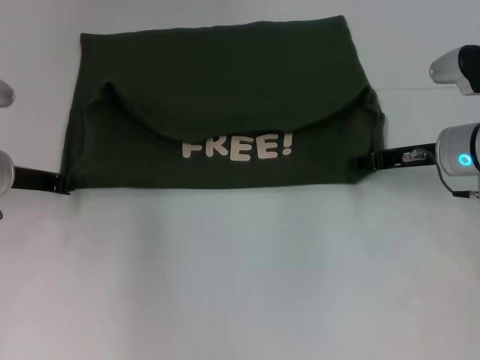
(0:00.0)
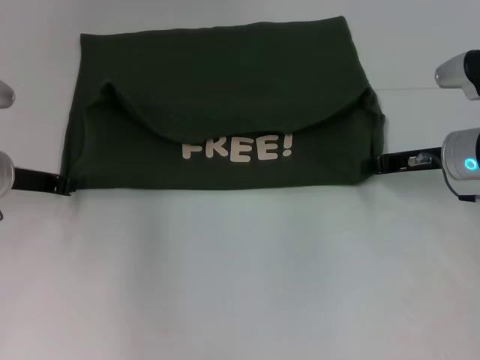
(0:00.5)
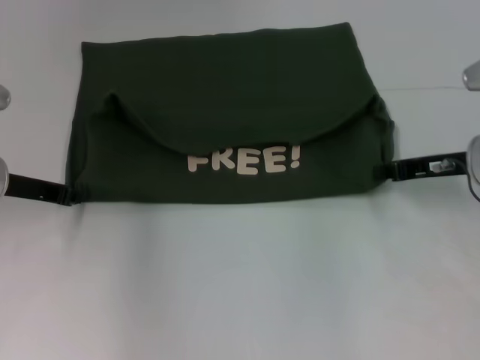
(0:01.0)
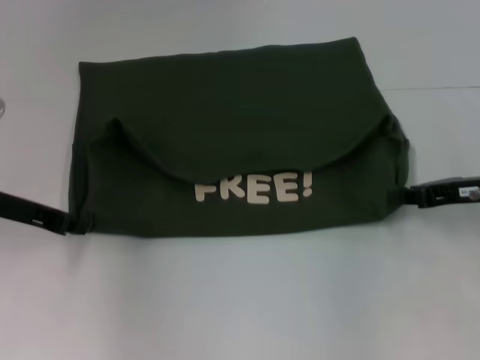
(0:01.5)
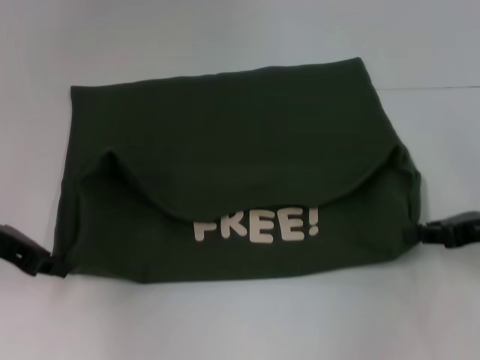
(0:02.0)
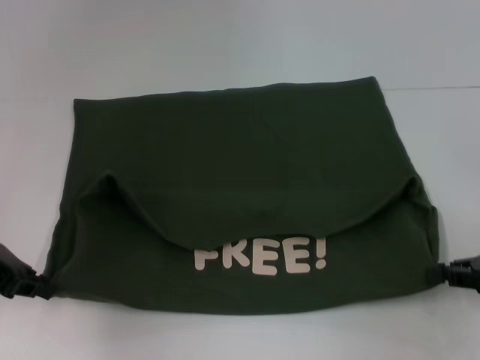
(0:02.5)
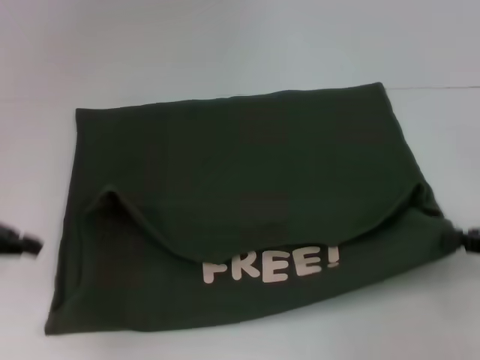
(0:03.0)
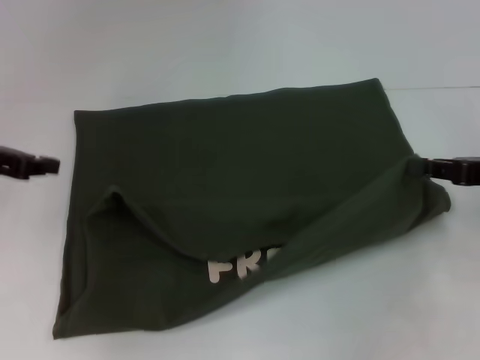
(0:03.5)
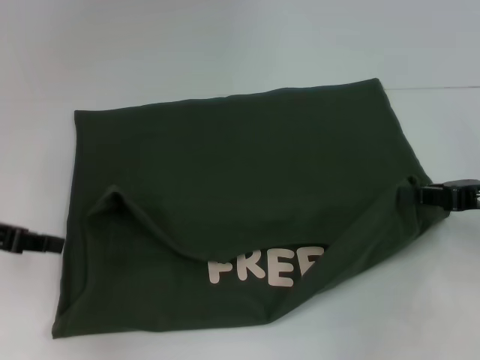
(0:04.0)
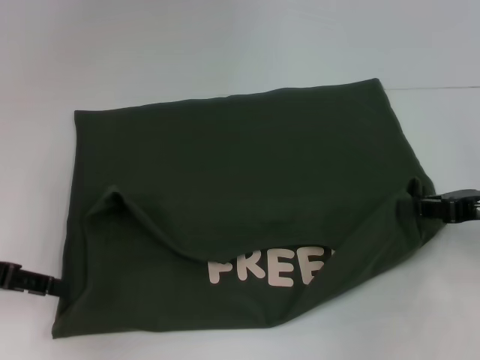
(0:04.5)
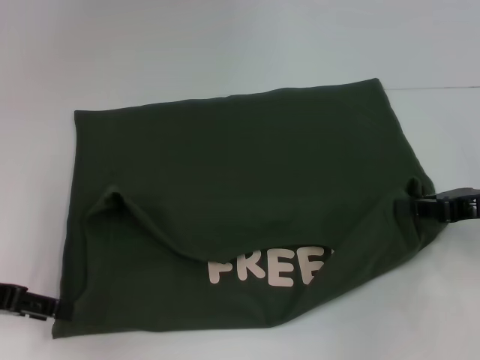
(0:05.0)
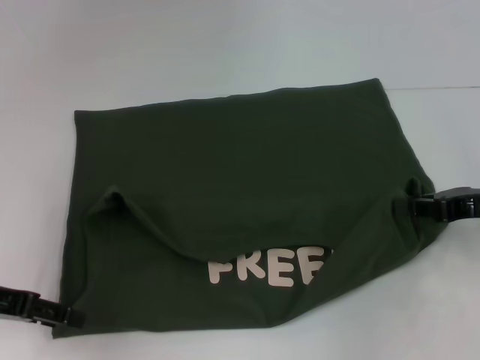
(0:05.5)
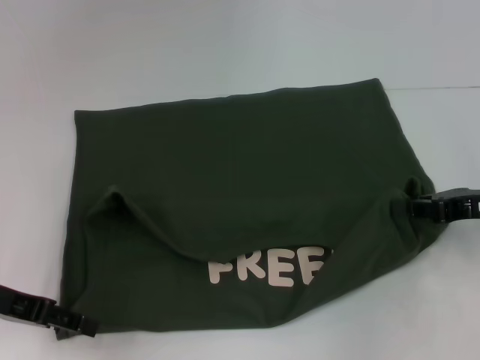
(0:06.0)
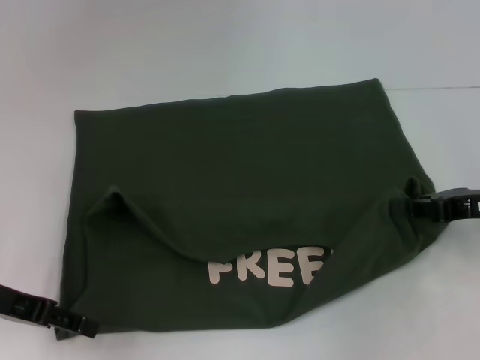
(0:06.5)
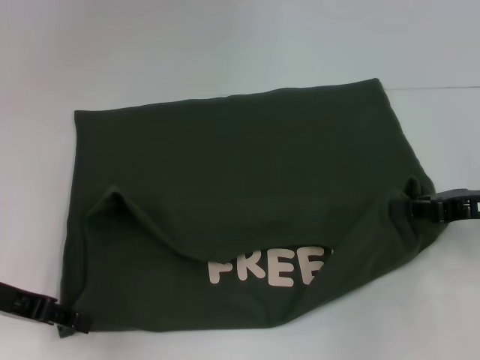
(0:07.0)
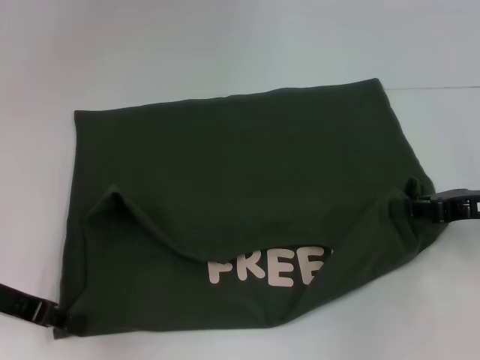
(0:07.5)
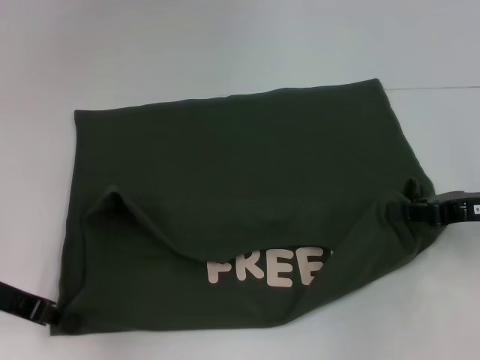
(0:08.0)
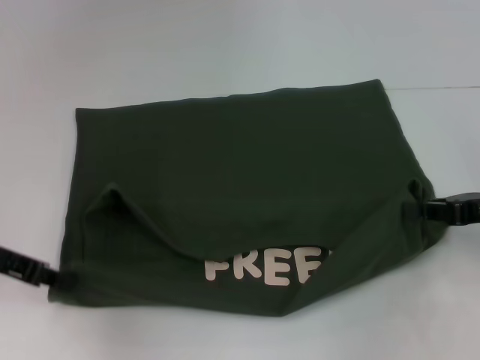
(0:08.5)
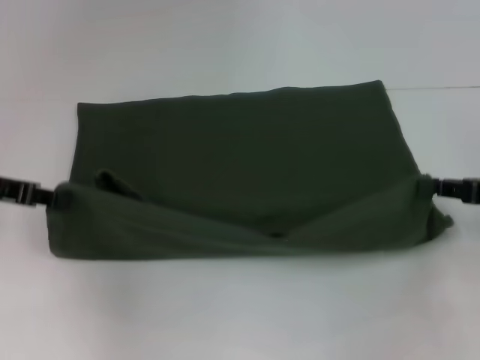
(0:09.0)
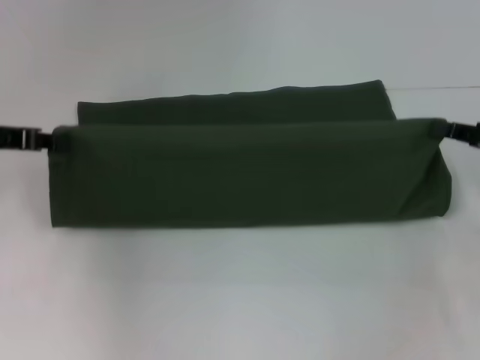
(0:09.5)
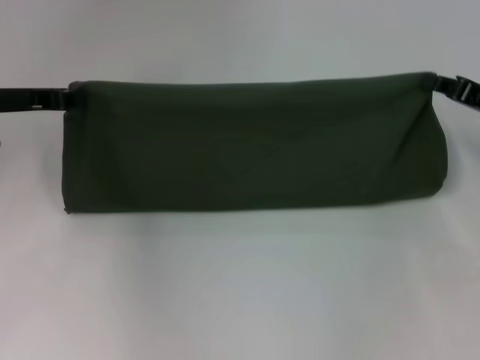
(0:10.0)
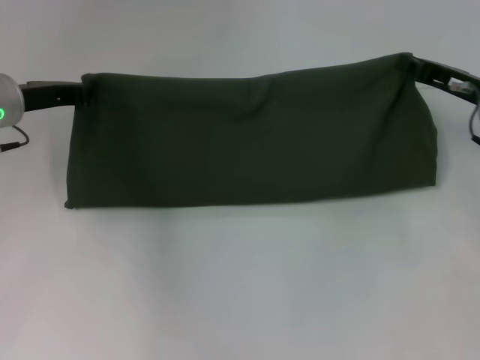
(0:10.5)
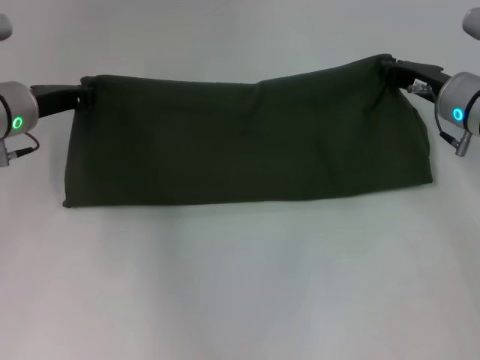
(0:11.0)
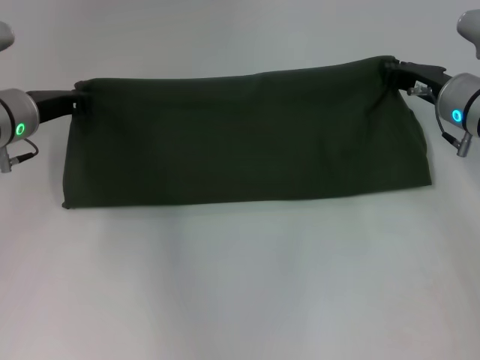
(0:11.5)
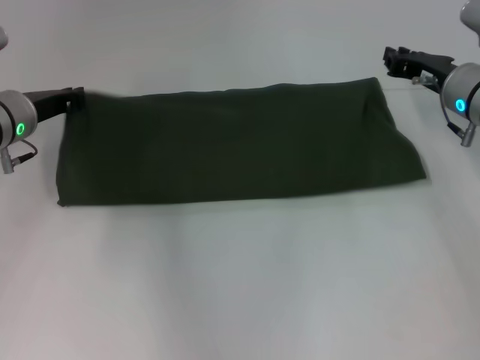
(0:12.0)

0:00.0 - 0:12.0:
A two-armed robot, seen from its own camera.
Step, 0:00.0 - 0:02.0: Pull the clothes with your left hand.
Step, 0:00.0 - 0:02.0: Pull the clothes with your right hand.
0:00.0 - 0:02.0: The right gripper travels backward and to the right by roughly 10 cm, and closes; the left gripper travels backward by roughly 5 cm.
0:04.0 - 0:06.0: The left gripper changes place by about 5 cm, and opens up.
0:06.0 - 0:08.0: The left gripper closes its fingers.
0:08.0 - 0:10.0: The right gripper shifts by some 5 cm. Meanwhile the left gripper is displaced forward and upward by about 15 cm.
0:10.0 - 0:12.0: The left gripper travels downward by approximately 5 cm. Meanwhile the right gripper is displaced to the left and forward by about 10 cm.

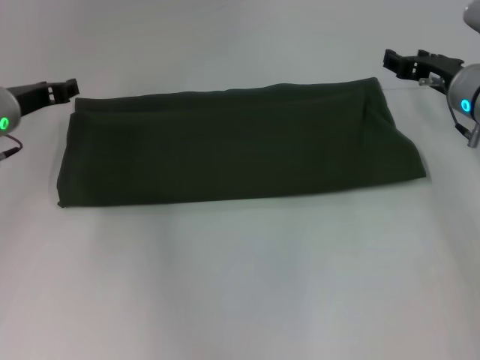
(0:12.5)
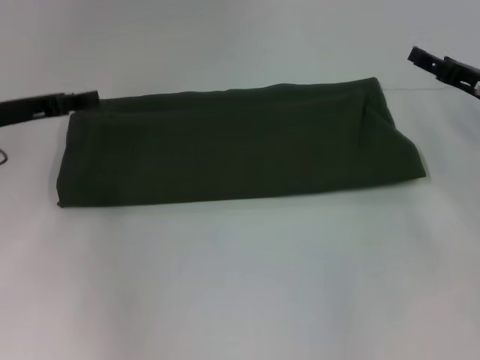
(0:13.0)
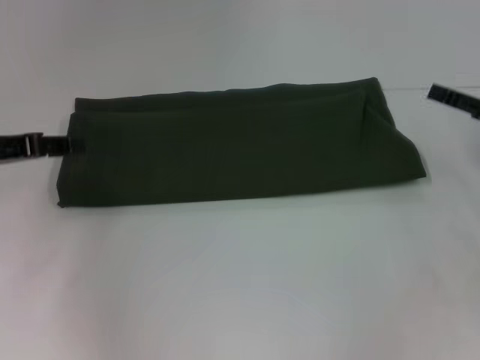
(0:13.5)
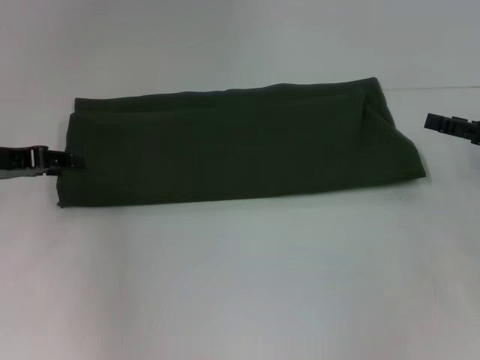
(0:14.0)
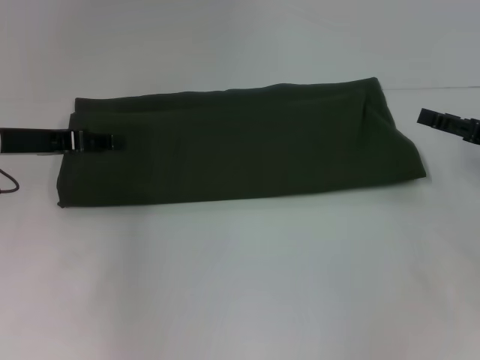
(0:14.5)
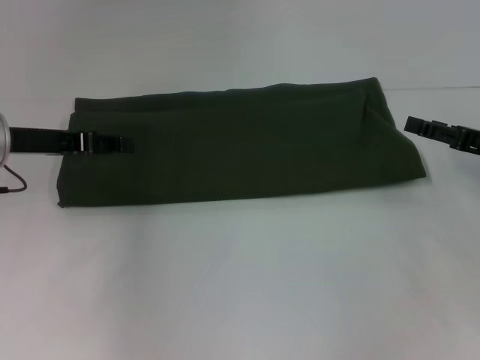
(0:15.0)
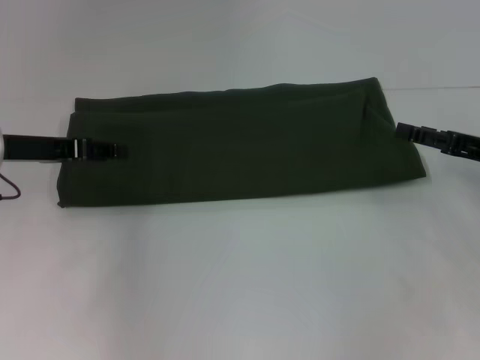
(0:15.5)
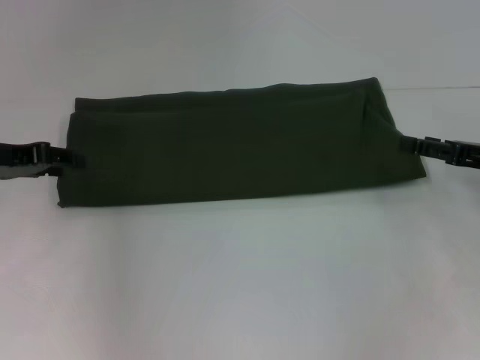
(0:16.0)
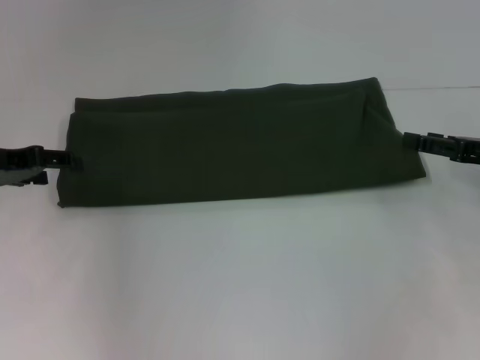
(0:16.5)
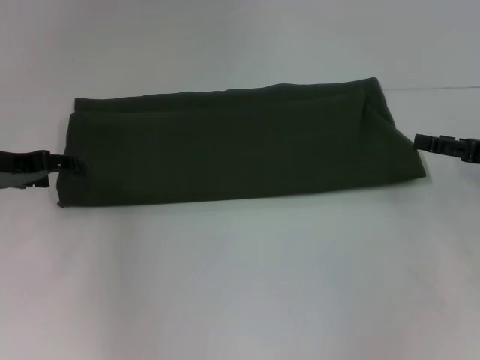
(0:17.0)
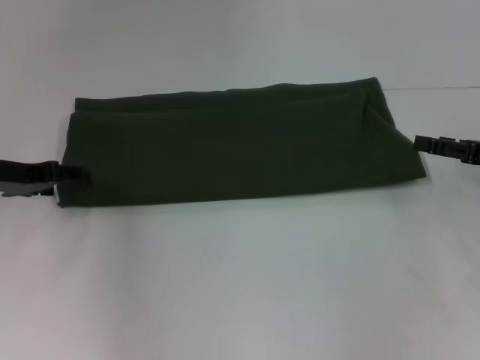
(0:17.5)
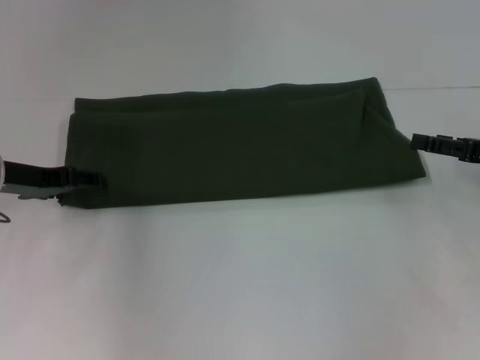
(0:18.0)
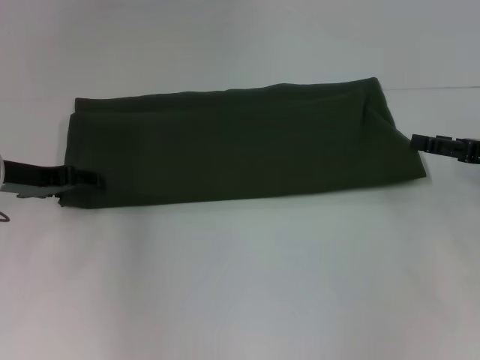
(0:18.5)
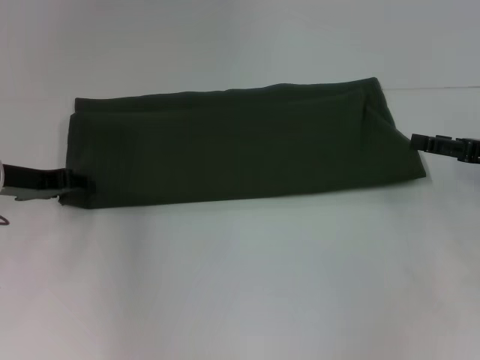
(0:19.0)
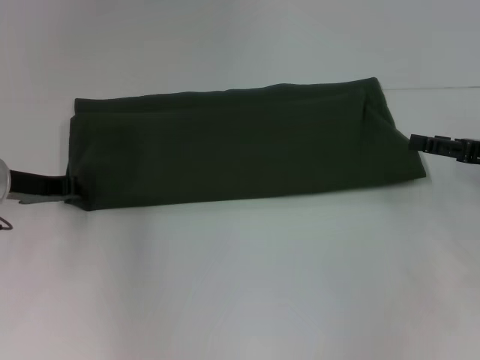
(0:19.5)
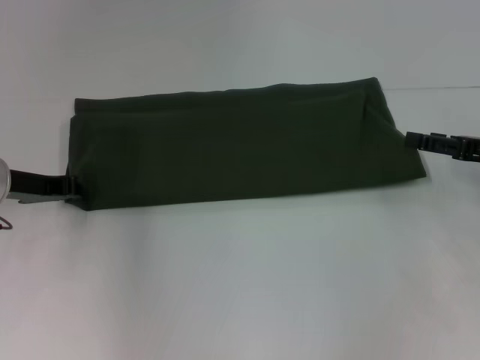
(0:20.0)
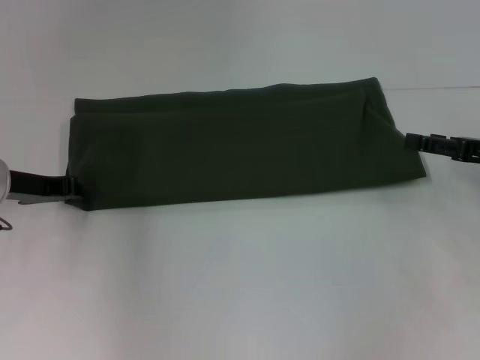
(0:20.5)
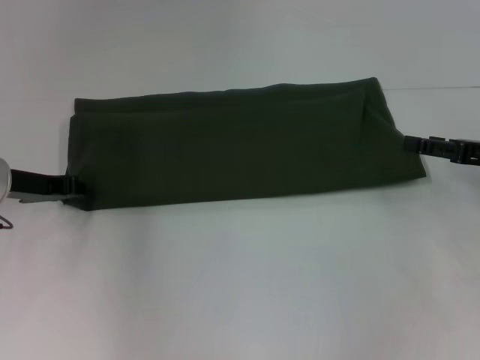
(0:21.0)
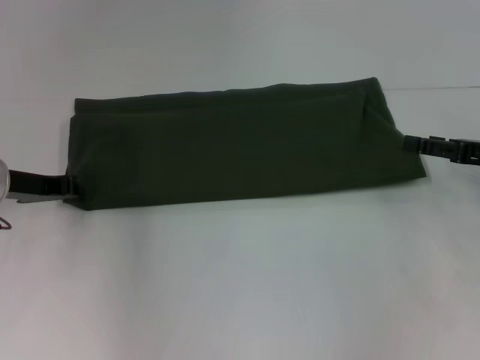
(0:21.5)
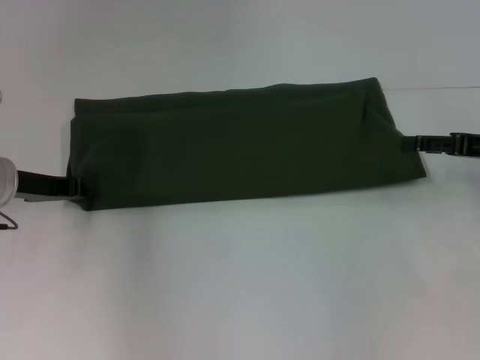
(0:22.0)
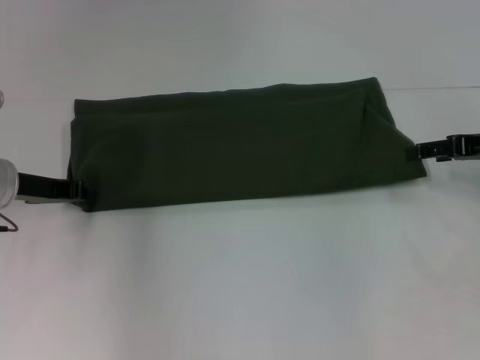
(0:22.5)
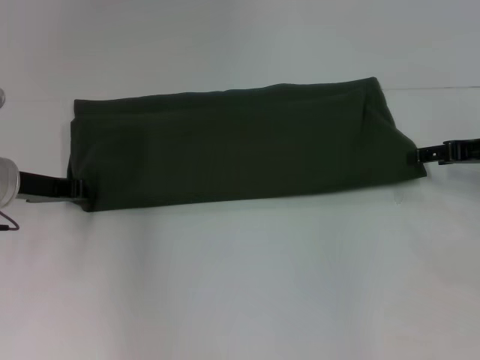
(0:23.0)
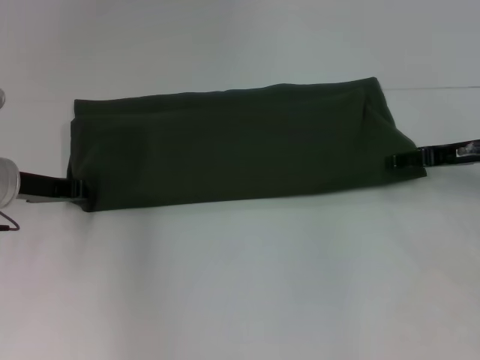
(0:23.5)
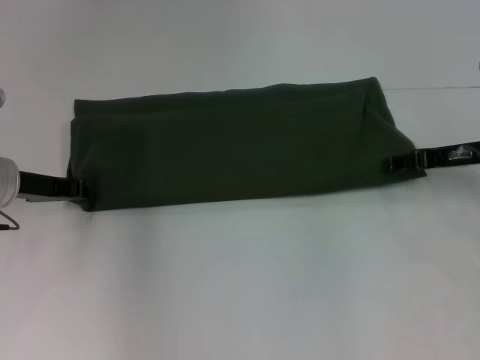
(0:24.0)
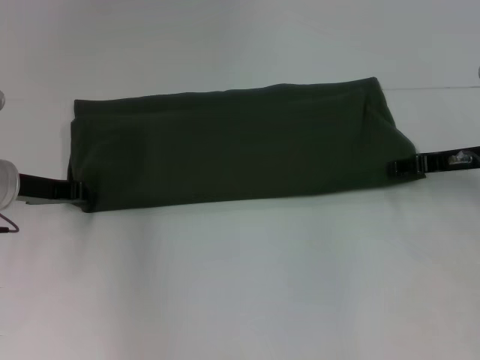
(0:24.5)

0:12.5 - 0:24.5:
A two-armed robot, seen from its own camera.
0:12.5 - 0:14.5: The right gripper travels backward and to the right by approximately 15 cm, and opens up.
0:14.5 - 0:16.5: There are only small adjustments of the grippers.
0:16.5 - 0:18.5: There are only small adjustments of the grippers.
0:18.5 - 0:20.5: The left gripper closes.
0:22.5 - 0:24.5: The right gripper shifts by approximately 5 cm.

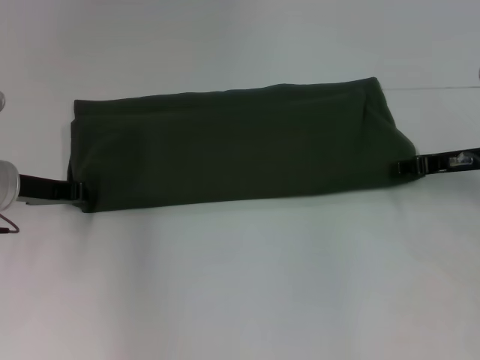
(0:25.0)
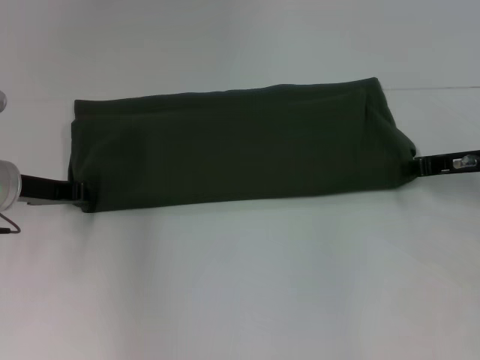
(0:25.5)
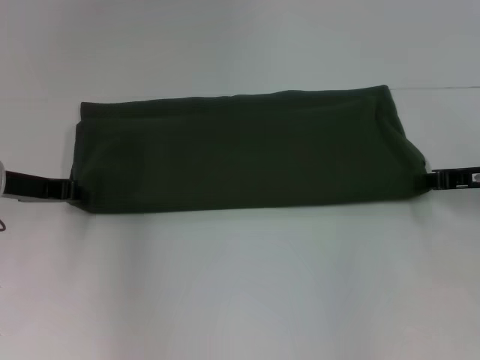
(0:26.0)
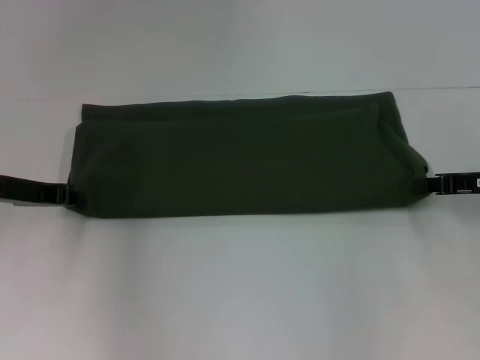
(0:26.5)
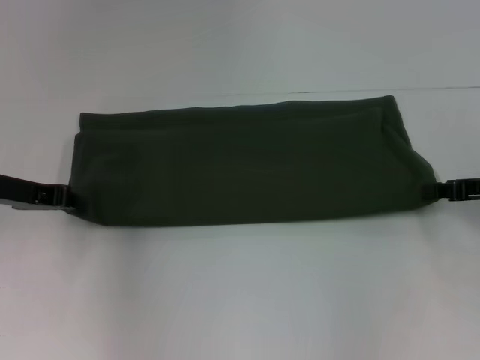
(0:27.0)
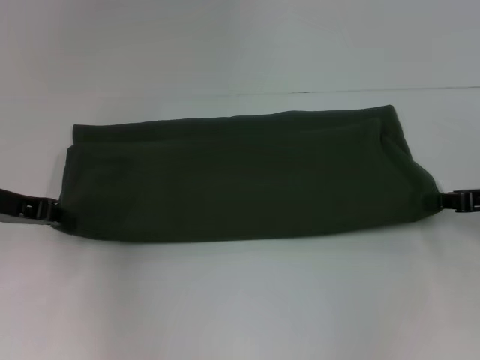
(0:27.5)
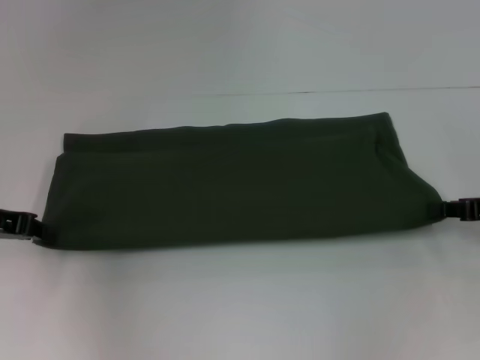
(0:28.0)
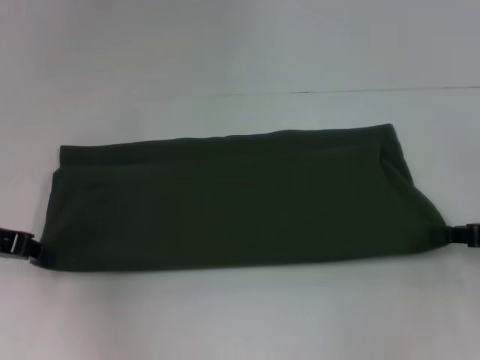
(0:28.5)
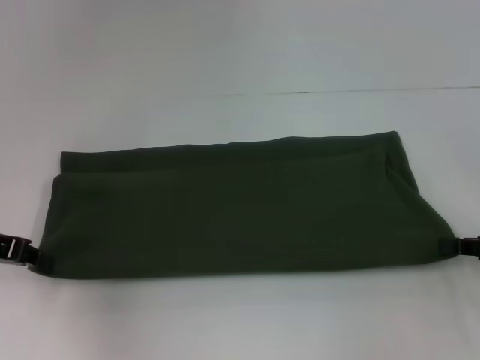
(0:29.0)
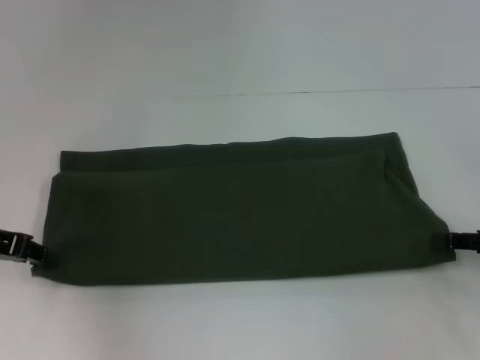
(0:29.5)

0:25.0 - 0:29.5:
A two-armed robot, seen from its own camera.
0:25.0 - 0:27.0: The right gripper ends up approximately 5 cm from where it was, and closes.
0:27.0 - 0:29.5: The right gripper travels backward by about 5 cm.
